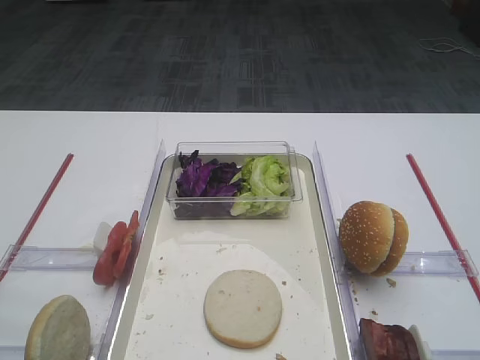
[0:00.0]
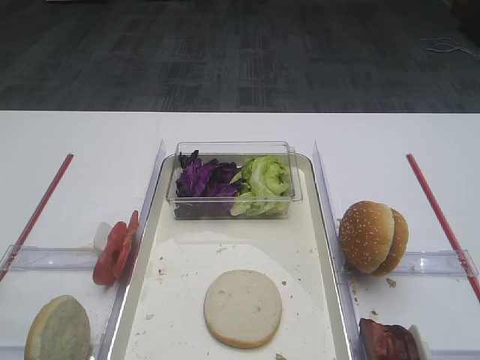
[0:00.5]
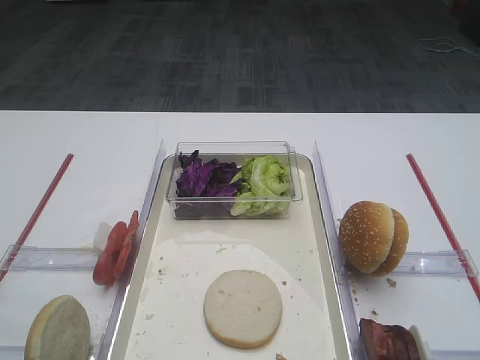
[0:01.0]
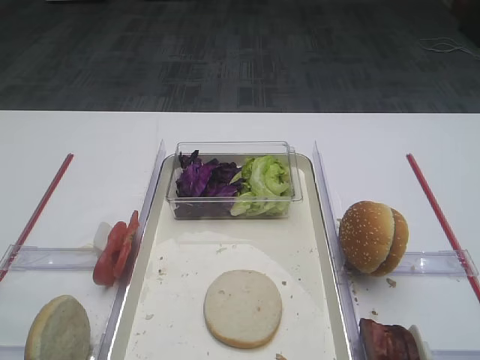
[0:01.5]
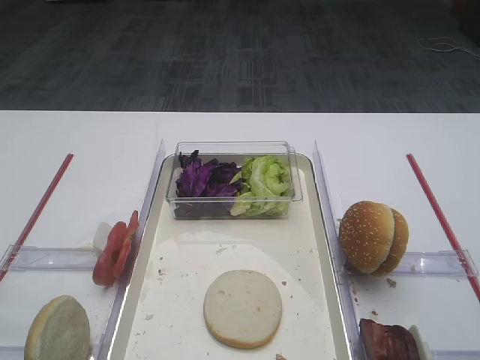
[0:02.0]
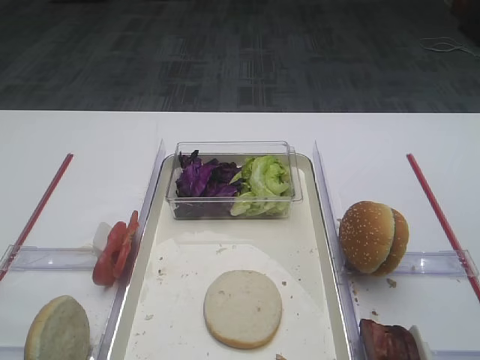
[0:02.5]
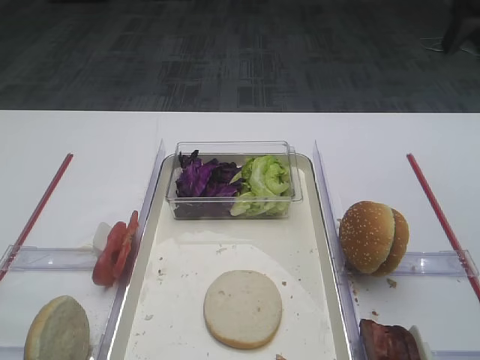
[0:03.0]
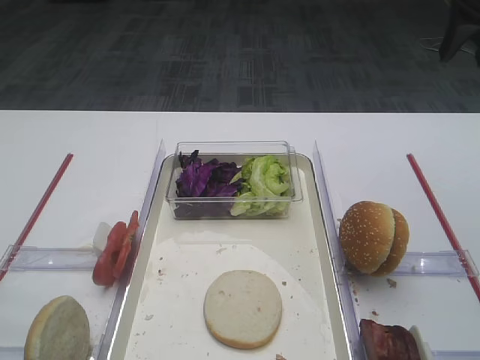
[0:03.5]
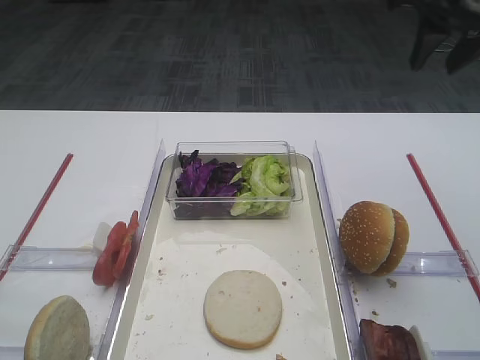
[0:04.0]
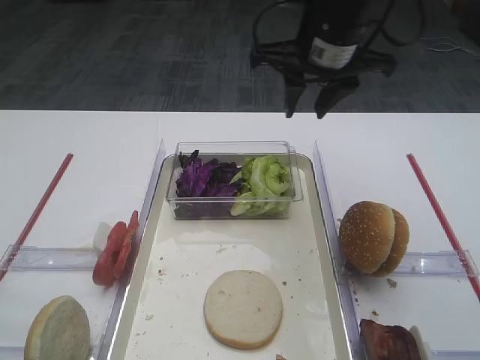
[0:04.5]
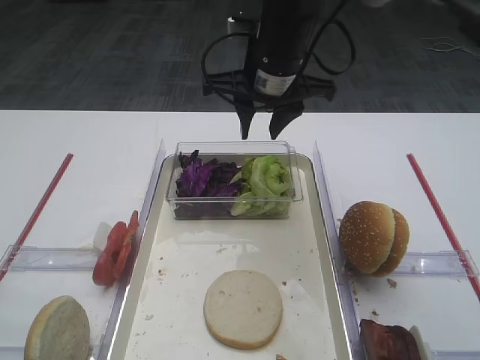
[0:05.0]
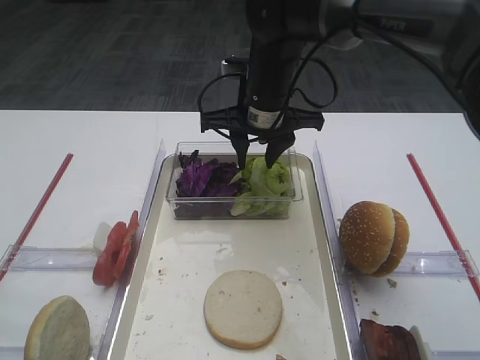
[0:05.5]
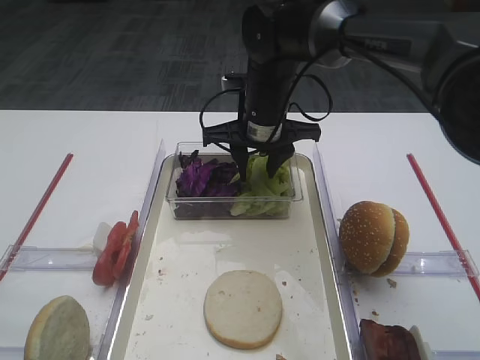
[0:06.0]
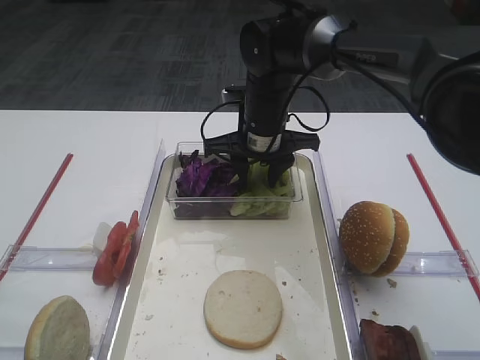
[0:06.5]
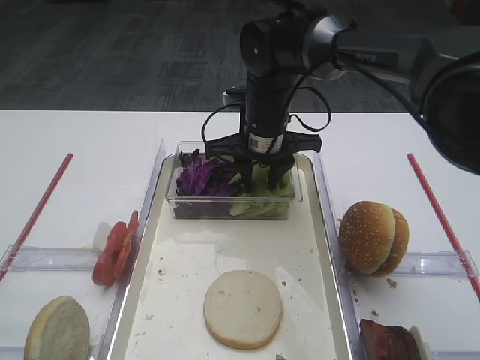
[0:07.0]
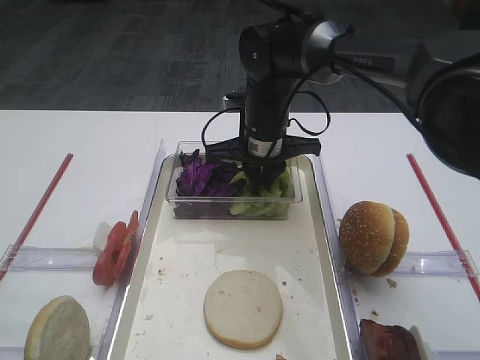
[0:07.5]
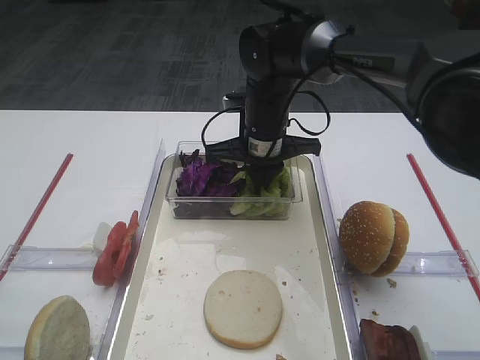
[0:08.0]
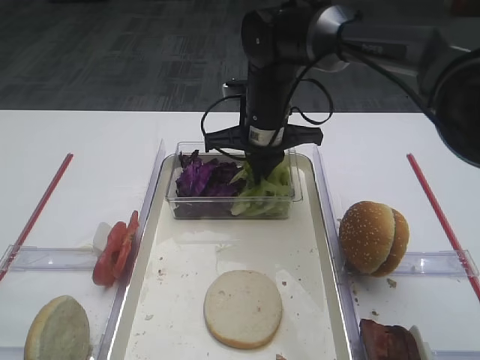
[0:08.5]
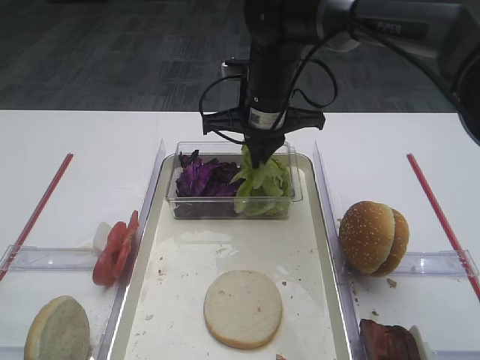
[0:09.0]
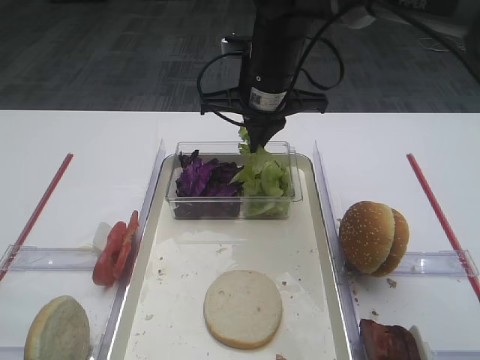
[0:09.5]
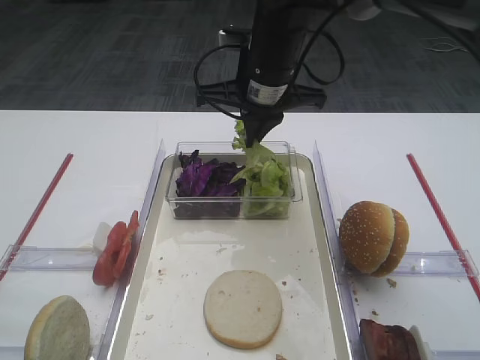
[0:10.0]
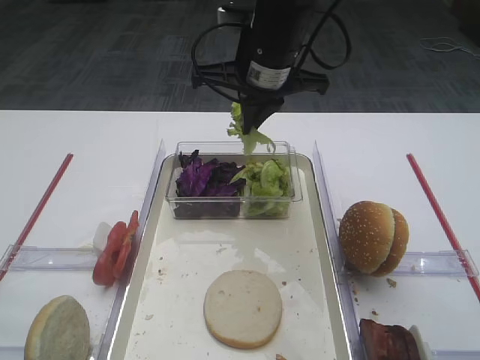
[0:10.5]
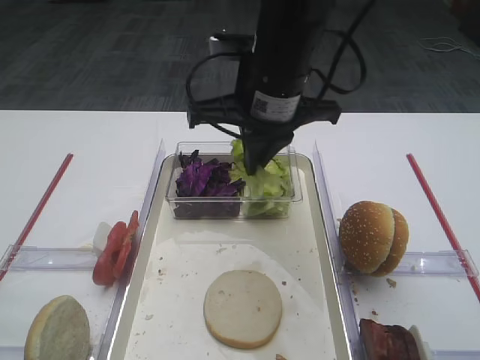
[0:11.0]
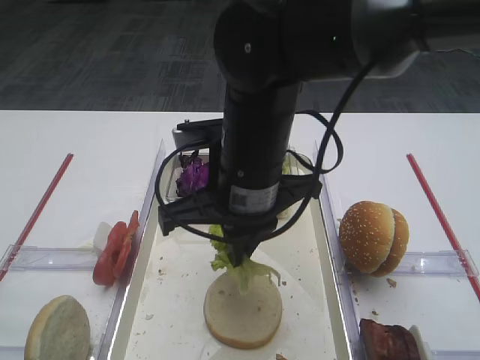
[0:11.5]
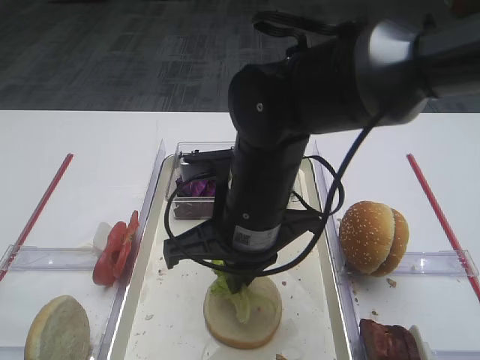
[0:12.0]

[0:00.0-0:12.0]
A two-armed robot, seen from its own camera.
Step, 0:00.0 to 0:09.0: Pick up the lettuce leaf with the right gripper.
0:04.0 to 0:06.0: The right gripper moves to the left and downward, some 25 cm.
0:06.0 to 0:08.0: The right gripper closes its fingers.
0:08.0 to 0:10.0: The right gripper heads upward, covering about 10 cm.
0:10.0 to 0:12.0: The right gripper heads backward, covering about 15 cm.

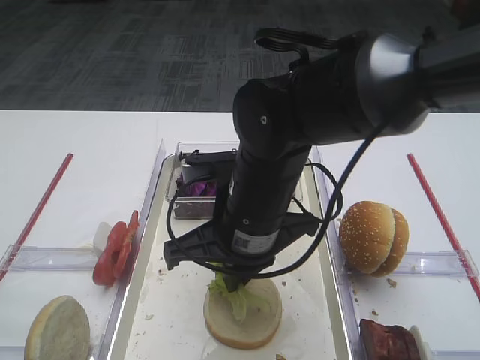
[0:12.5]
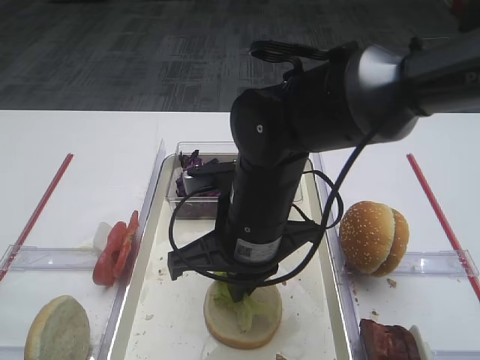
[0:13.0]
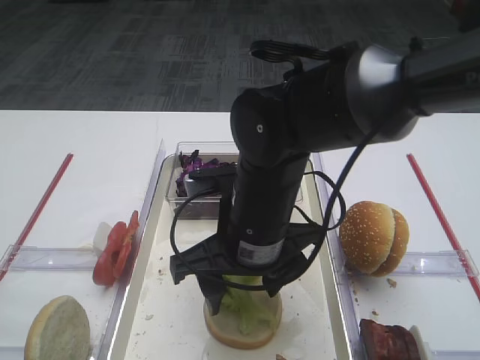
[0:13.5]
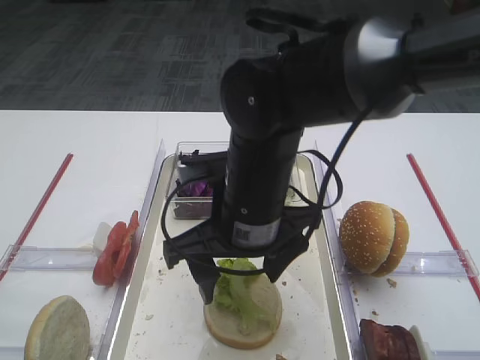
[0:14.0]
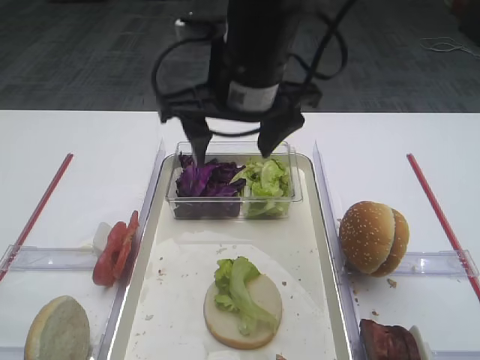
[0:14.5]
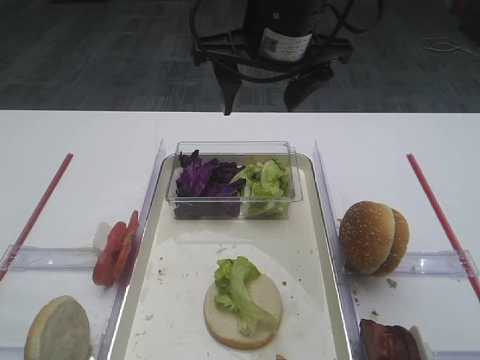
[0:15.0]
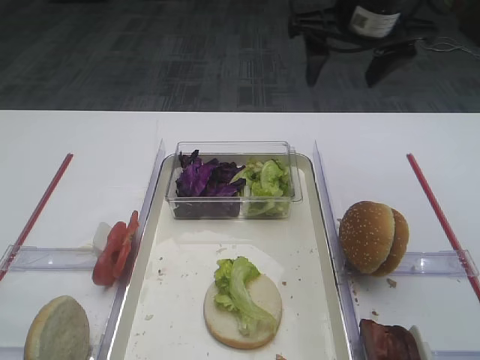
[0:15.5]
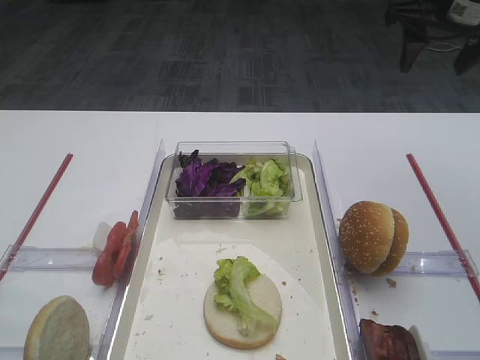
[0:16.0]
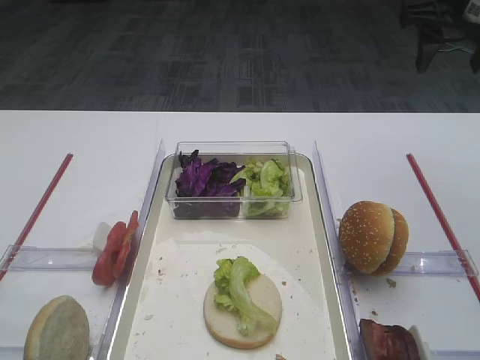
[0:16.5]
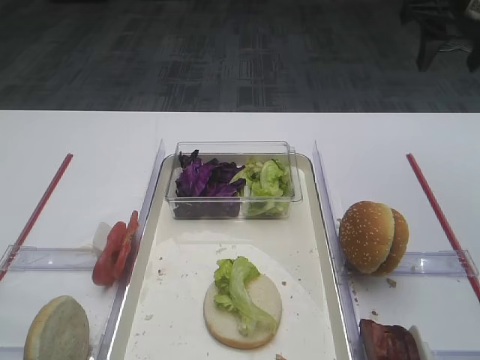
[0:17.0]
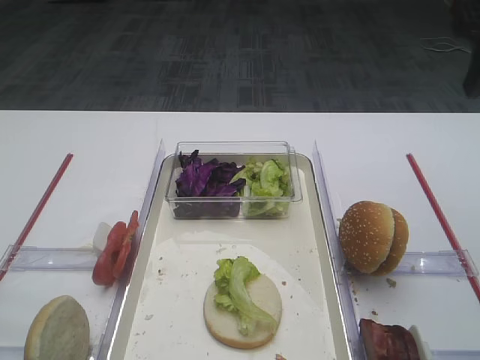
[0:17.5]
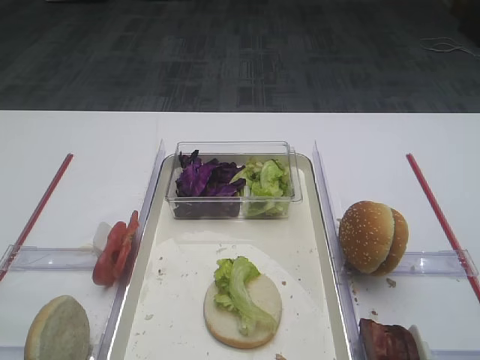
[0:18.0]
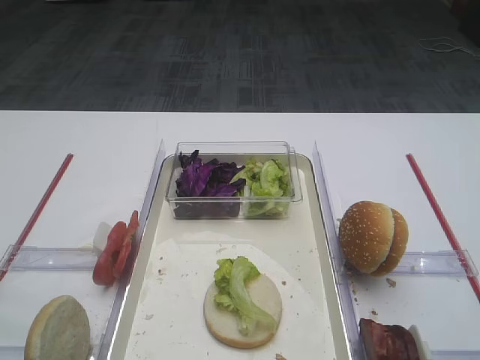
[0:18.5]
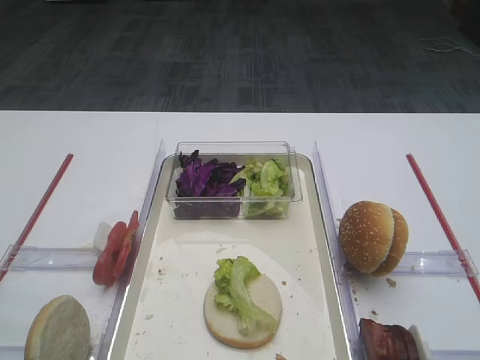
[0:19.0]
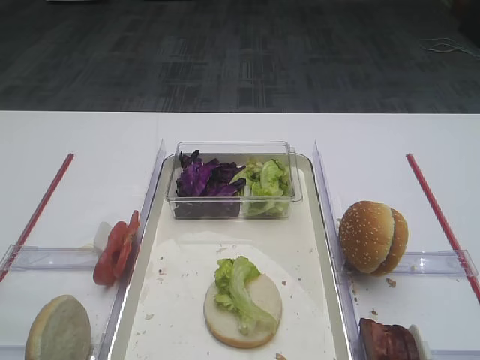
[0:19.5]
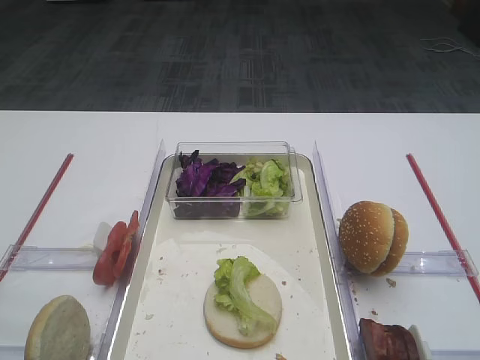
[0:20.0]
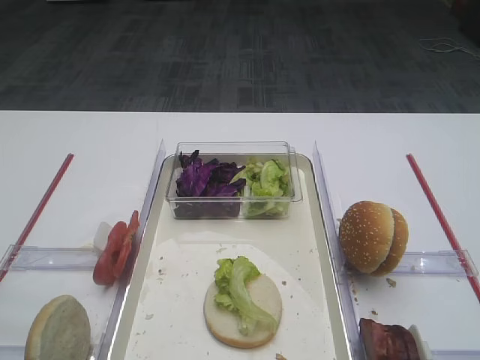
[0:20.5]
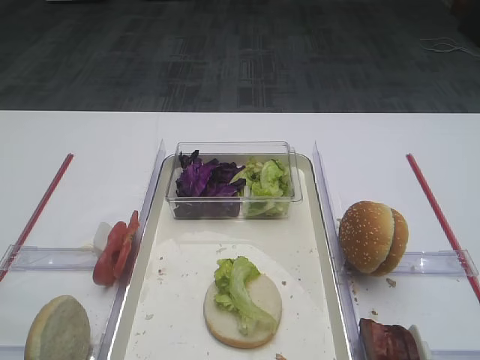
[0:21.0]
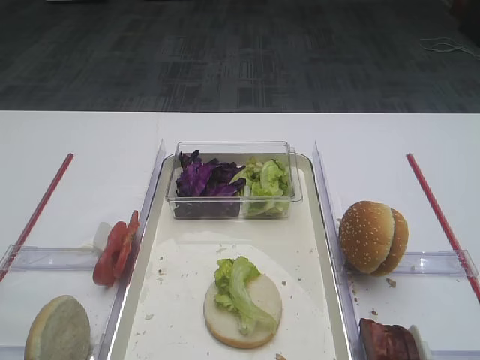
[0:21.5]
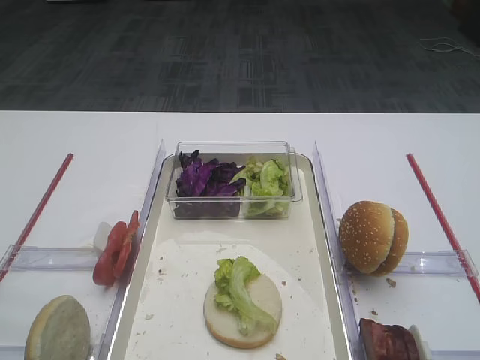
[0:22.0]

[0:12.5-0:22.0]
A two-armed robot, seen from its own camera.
0:12.5 to 0:14.5: The right gripper moves upward and forward, approximately 10 cm, and opens.
0:14.5 to 0:16.5: The right gripper goes about 30 cm to the right and forward.
0:20.0 to 0:22.0: Neither gripper changes place.

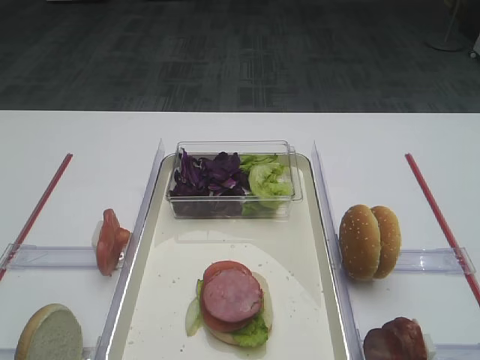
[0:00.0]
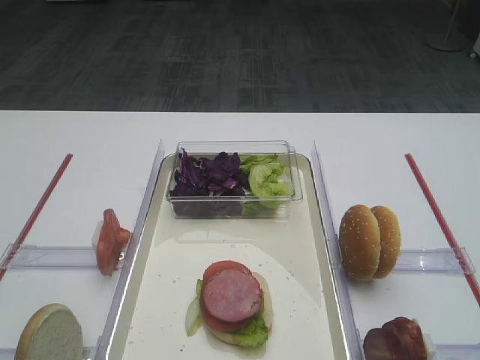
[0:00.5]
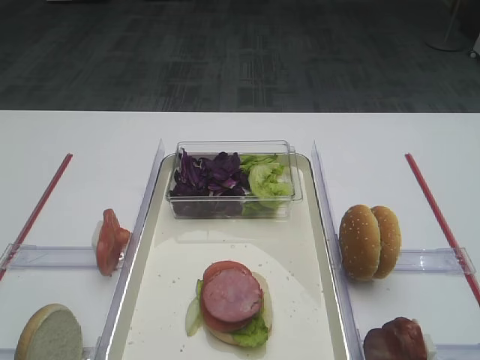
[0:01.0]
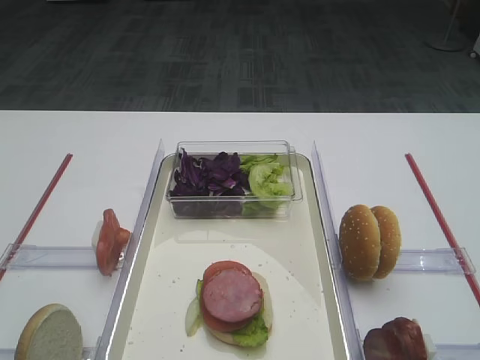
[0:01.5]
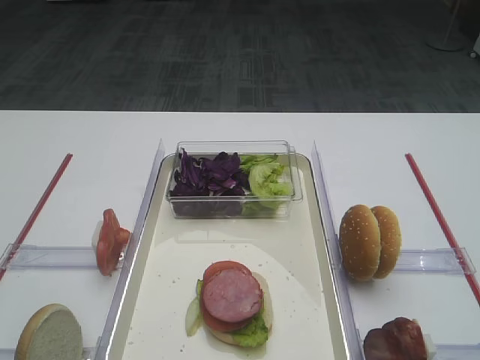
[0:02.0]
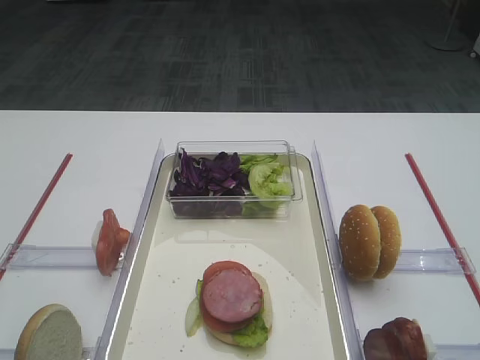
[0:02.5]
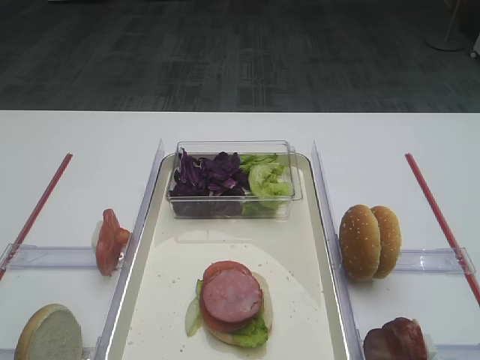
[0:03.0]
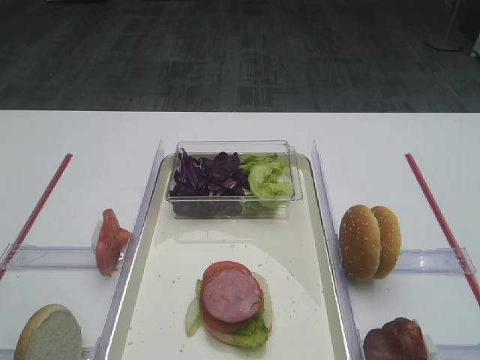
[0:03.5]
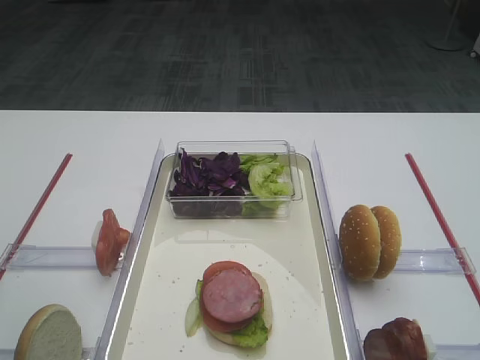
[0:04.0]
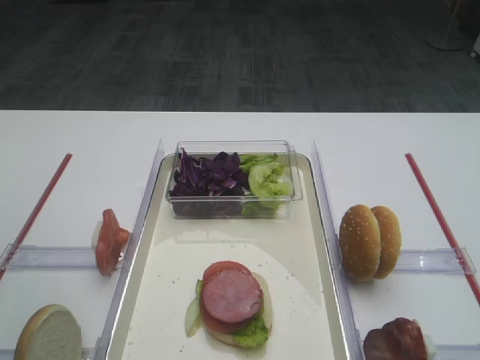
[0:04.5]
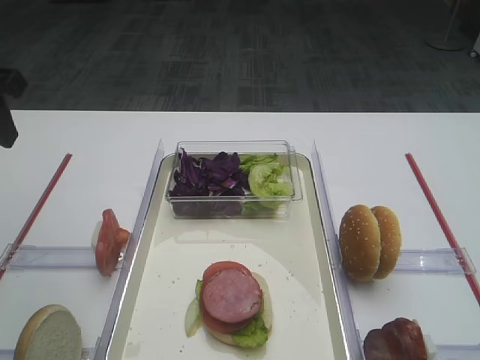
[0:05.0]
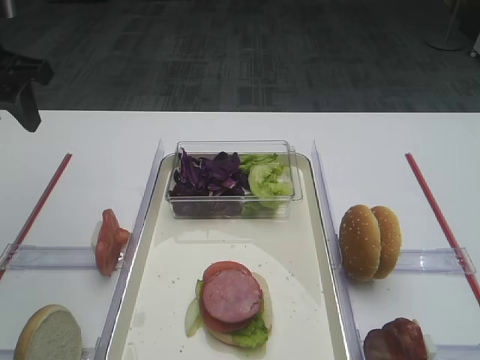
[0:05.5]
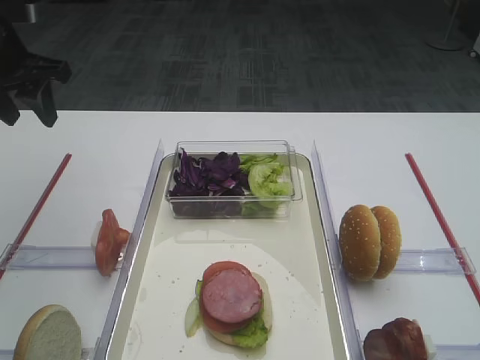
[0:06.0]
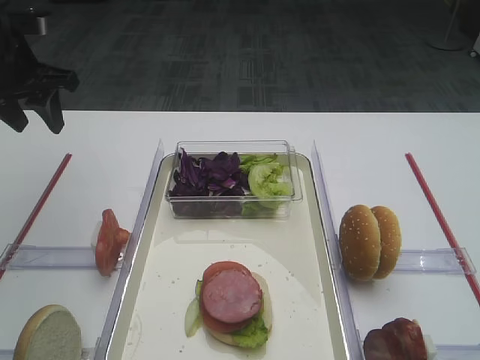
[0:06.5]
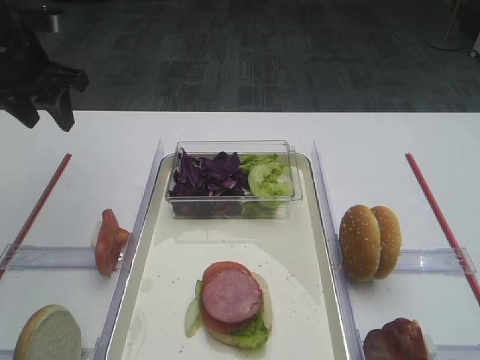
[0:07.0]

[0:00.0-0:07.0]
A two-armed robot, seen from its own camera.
0:03.5 to 0:05.0: The left gripper shifts about 15 cm forward.
0:05.0 to 0:07.0: The left gripper travels forward by roughly 10 cm.
